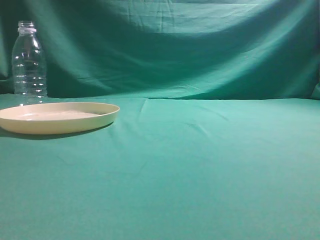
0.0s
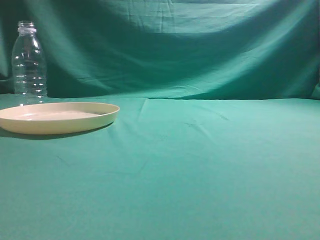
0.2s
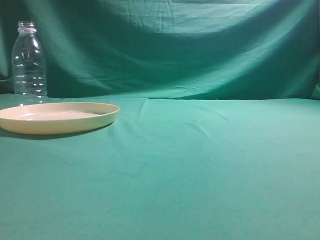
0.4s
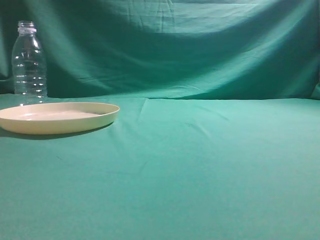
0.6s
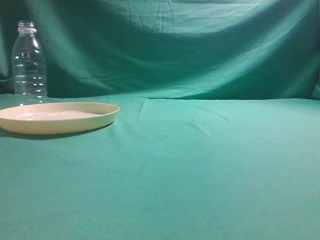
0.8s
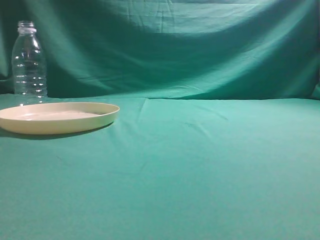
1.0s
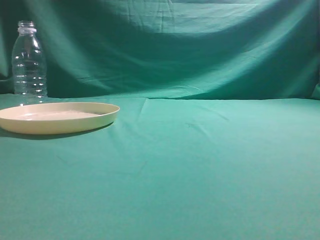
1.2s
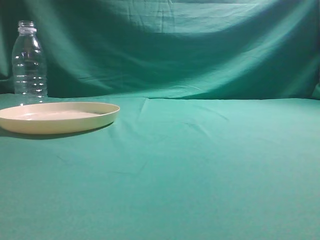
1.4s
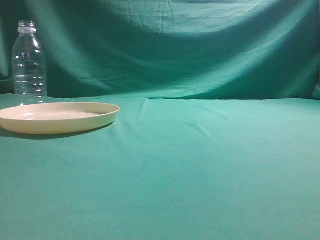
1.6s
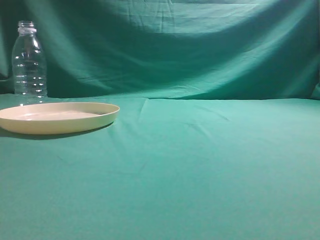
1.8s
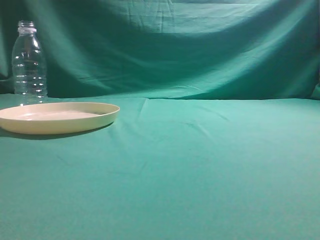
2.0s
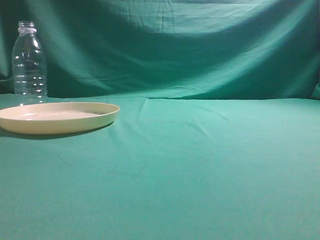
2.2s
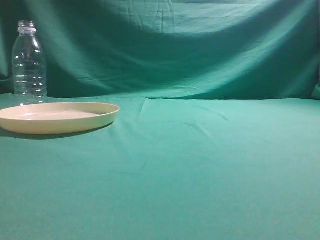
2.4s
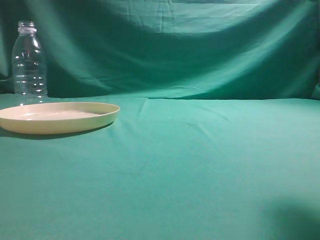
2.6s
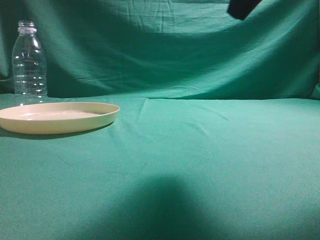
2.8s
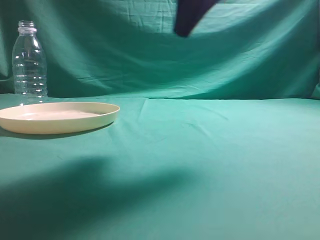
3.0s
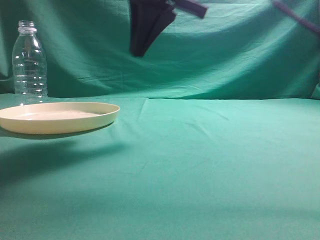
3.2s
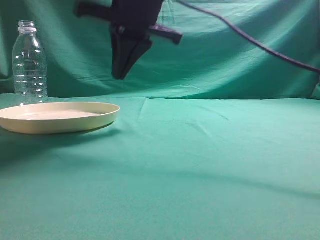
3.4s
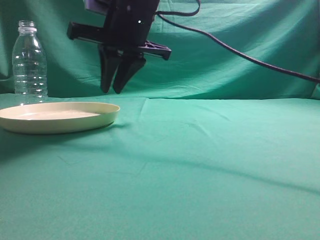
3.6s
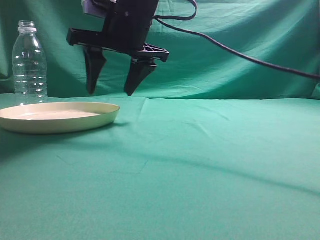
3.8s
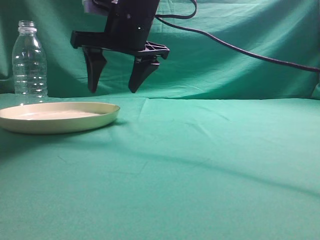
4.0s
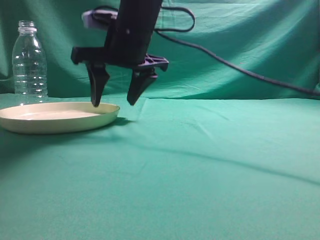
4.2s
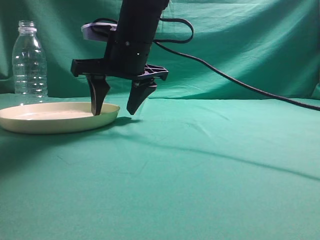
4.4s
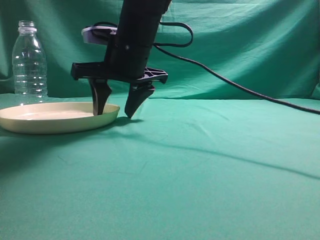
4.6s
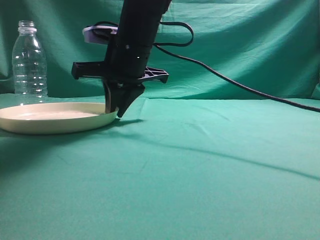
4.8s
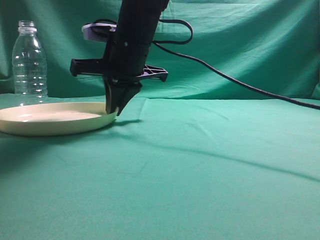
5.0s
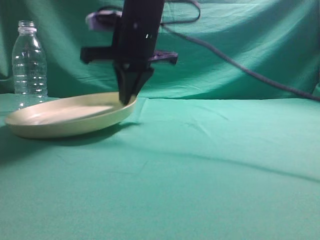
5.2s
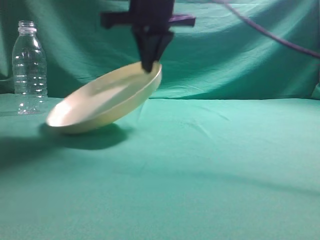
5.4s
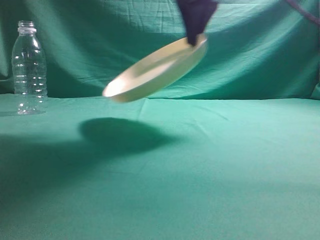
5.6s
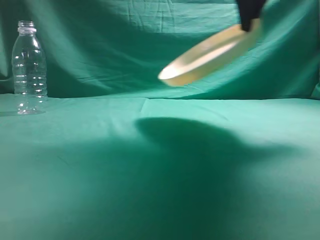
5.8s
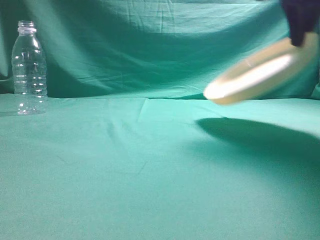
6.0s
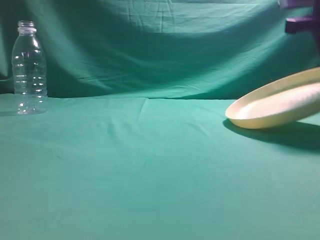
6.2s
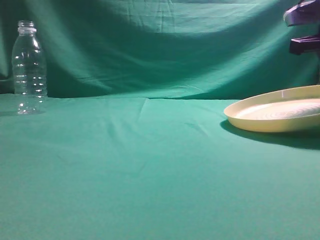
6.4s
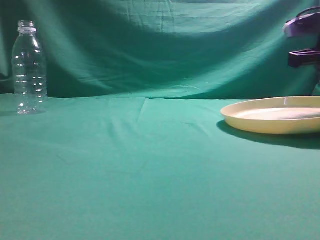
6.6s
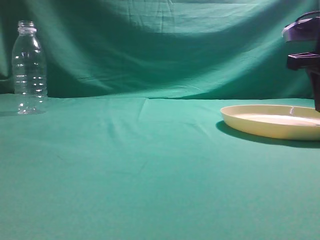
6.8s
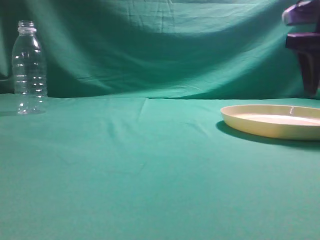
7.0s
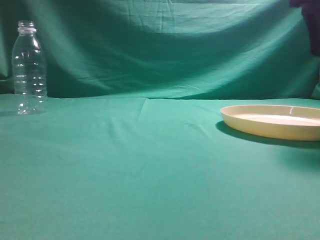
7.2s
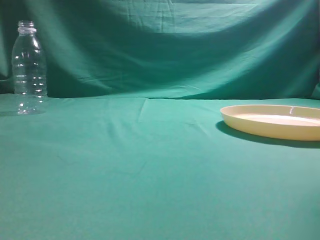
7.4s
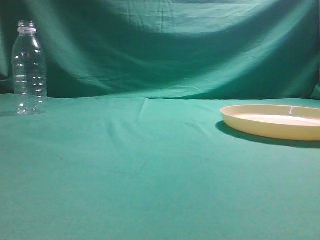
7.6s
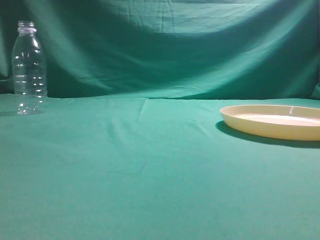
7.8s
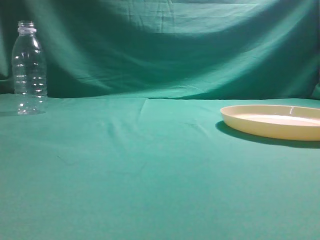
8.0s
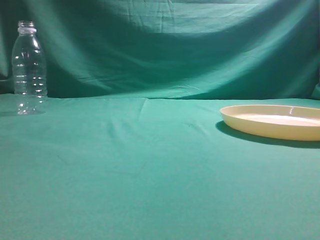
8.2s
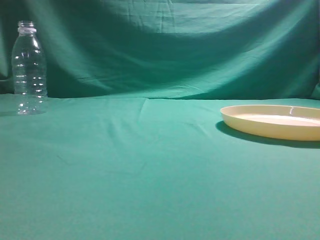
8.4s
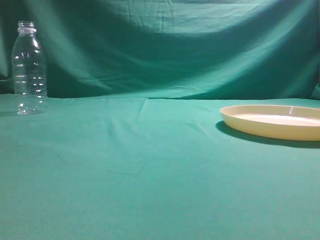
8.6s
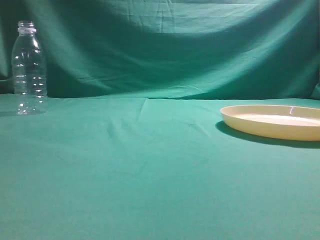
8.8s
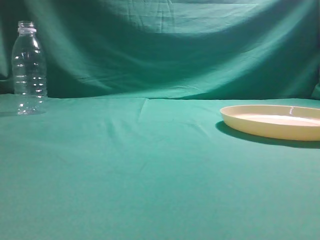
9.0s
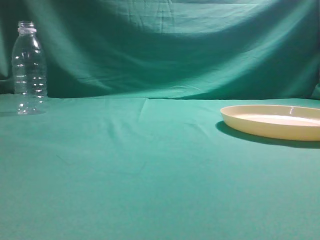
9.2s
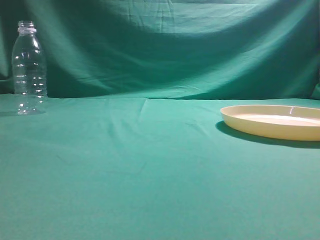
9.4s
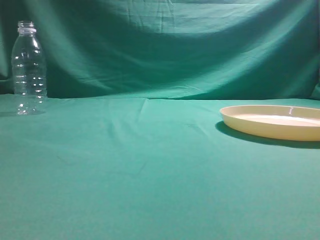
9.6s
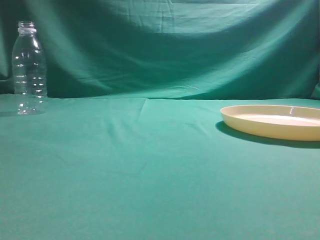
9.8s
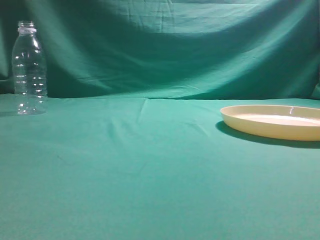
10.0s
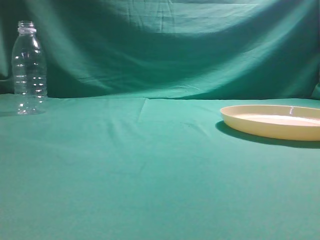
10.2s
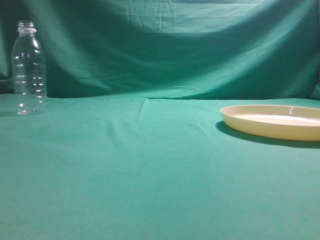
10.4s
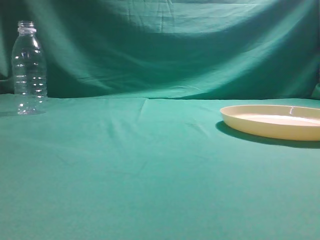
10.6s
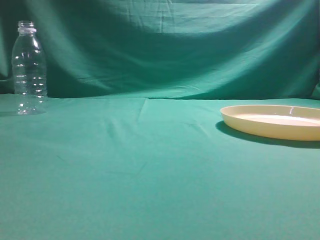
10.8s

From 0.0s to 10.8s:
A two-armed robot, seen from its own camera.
Step, from 0.0s to 5.4s: Pick the container that can hold fruits.
Step, from 5.6s to 7.6s: Move the picked object to the right side of the table.
From 1.6s to 3.0s: The right gripper is displaced forward and to the left by some 25 cm.
From 3.0s to 4.6s: The right gripper is displaced to the left, forward and downward by approximately 25 cm, and opens its fingers.
From 4.6s to 6.2s: The right gripper goes roughly 25 cm to the right, and closes.
From 6.2s to 7.8s: The right gripper moves upward and backward, roughly 15 cm, and opens and closes again.
